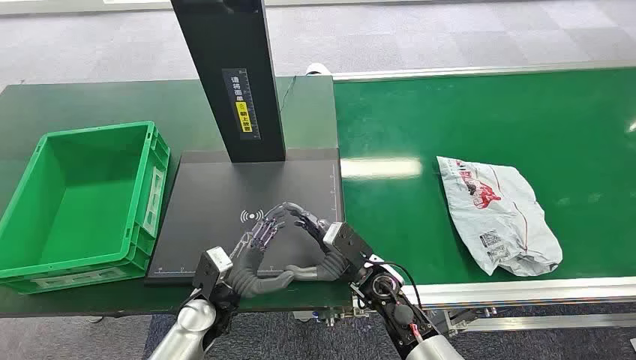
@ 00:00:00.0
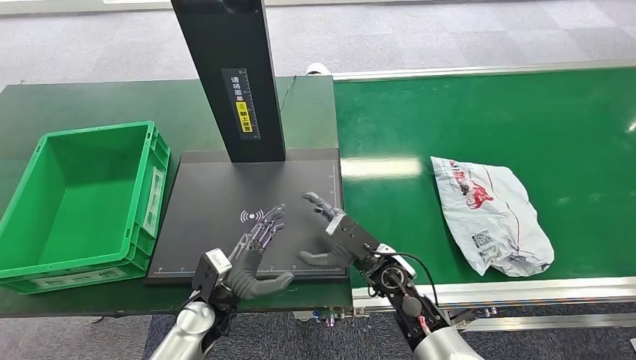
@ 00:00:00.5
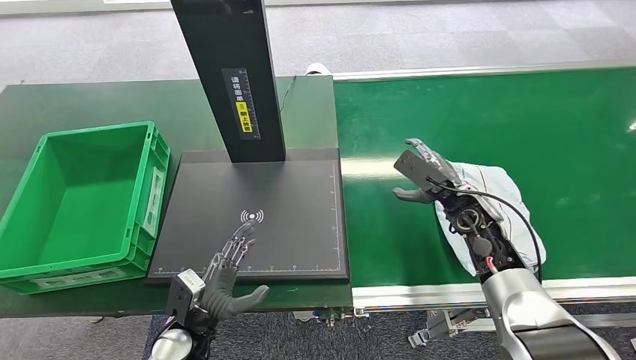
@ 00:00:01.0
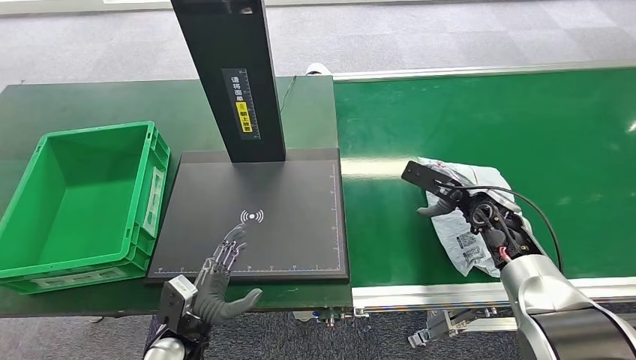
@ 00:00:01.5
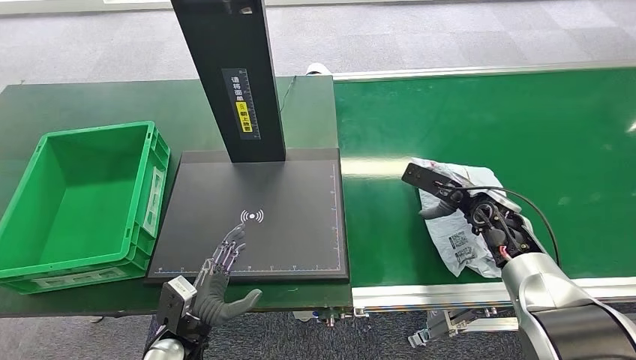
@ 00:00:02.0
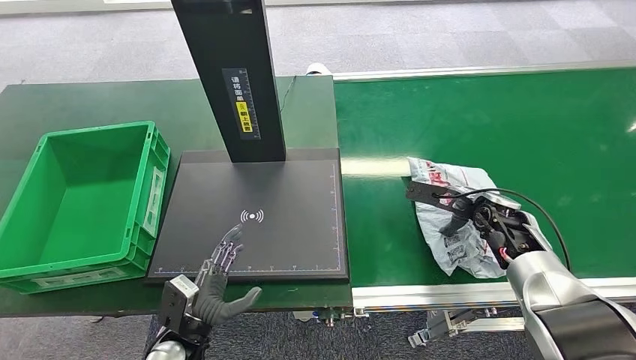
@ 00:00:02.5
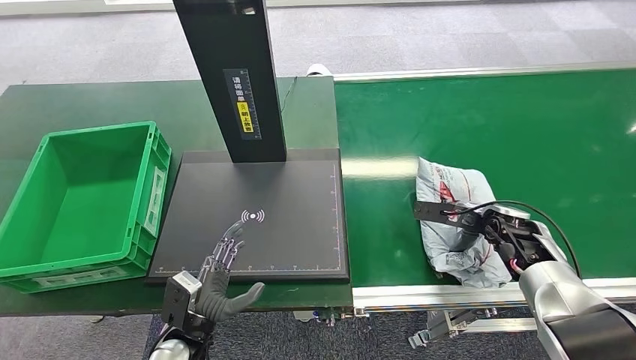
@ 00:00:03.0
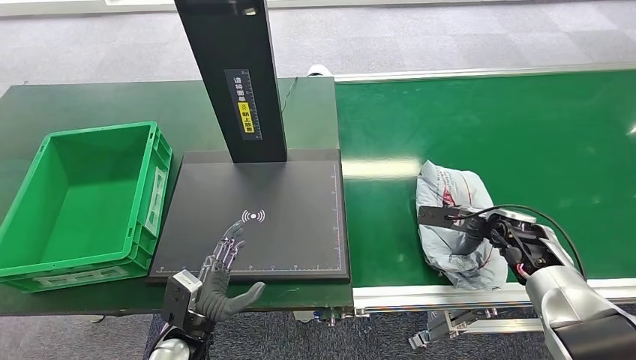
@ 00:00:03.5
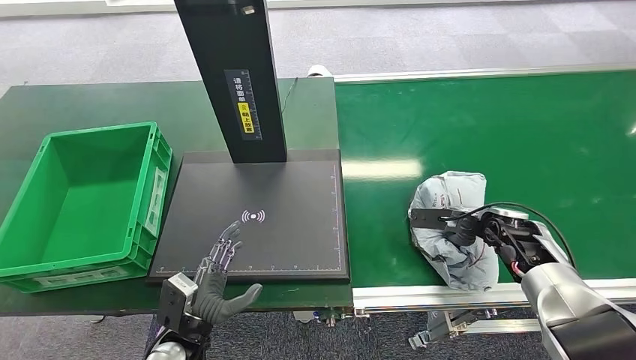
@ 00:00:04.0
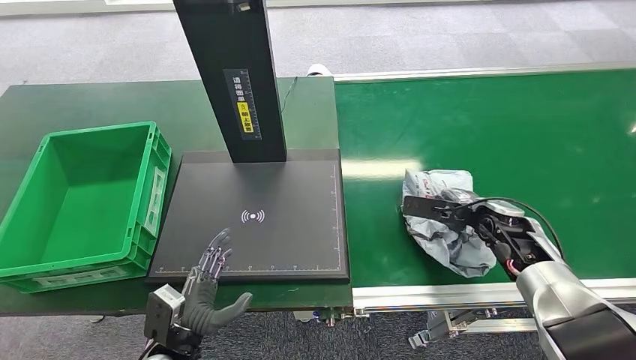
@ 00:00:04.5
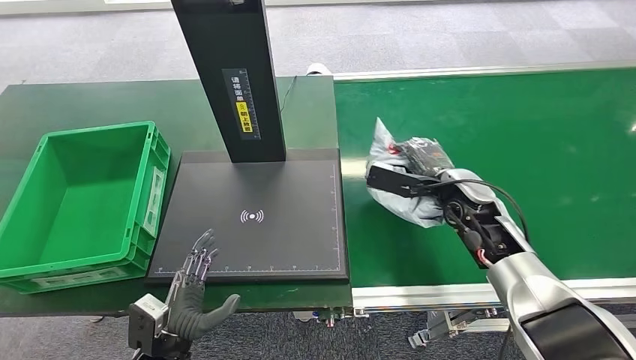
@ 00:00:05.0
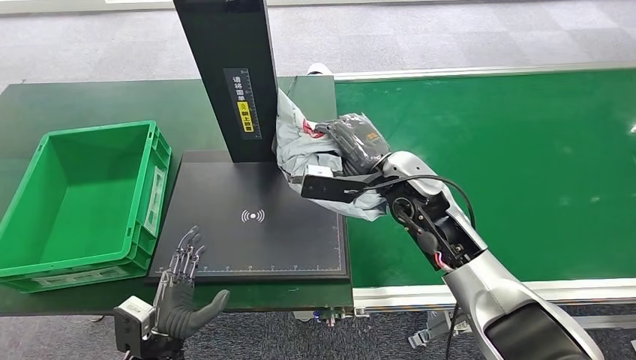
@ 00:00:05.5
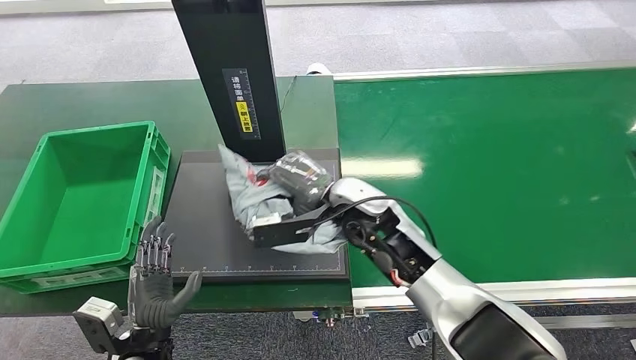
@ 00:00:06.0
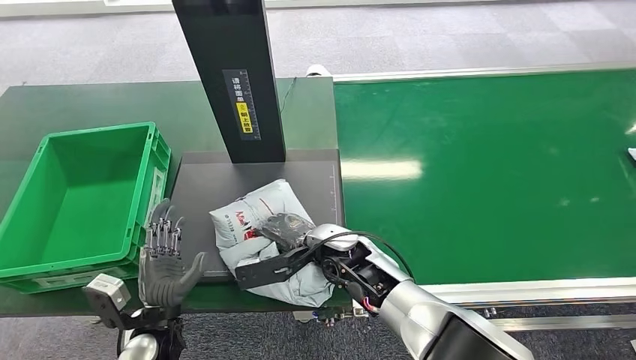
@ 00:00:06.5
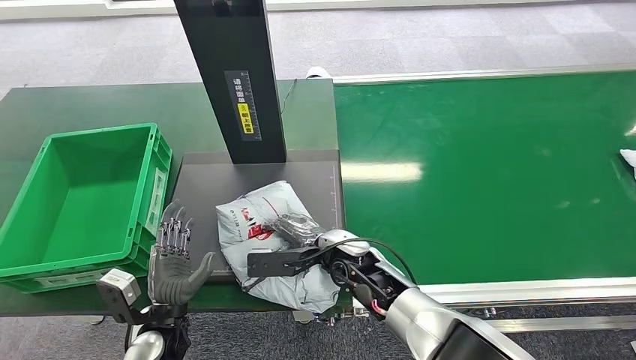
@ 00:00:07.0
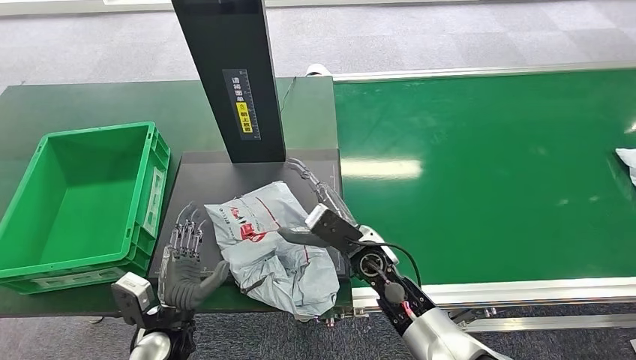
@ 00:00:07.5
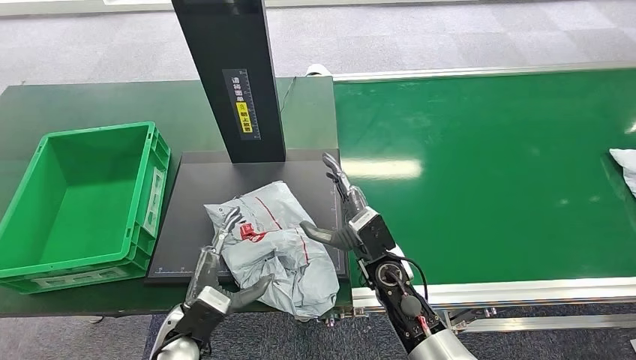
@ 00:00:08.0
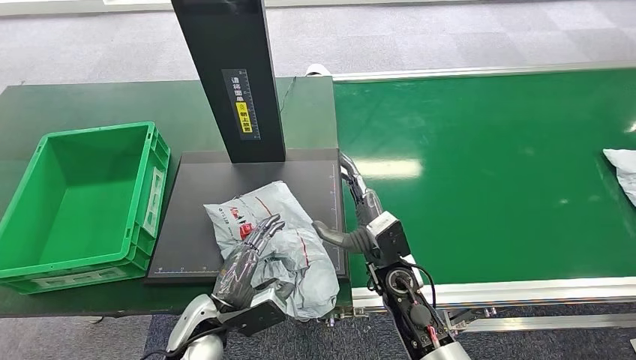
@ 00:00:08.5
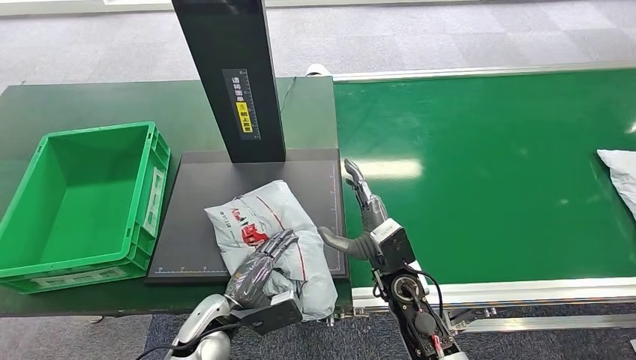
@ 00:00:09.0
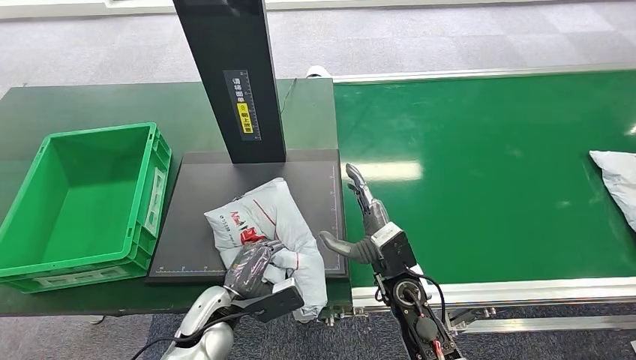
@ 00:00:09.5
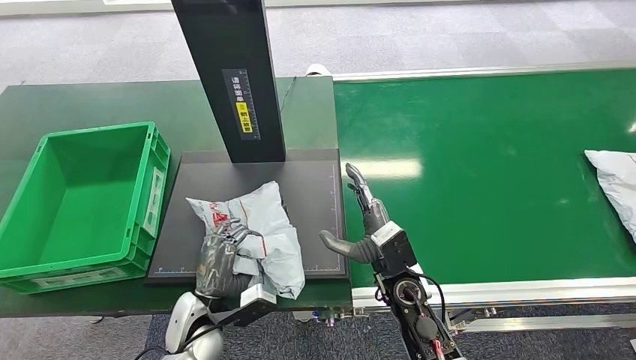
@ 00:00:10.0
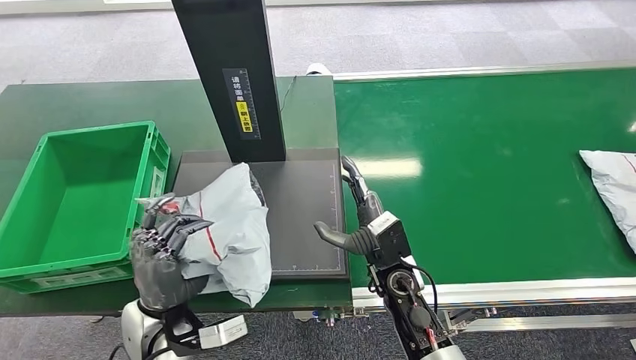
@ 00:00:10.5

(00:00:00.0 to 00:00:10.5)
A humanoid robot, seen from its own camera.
Task of the whole recording: Weigh the package on the weighing device and place it in the left basket.
Step, 00:00:00.0 - 00:00:05.0: Pick up the package from the conveyor belt.
Step, 00:00:06.0 - 00:00:07.5: Place the package onto the inbound machine.
00:00:02.0 - 00:00:04.0: The right hand ends up approximately 5 cm from where it was.
00:00:06.5 - 00:00:08.5: Both hands move to the right, roughly 5 cm.
00:00:08.5 - 00:00:10.5: The left hand is displaced upward by some 10 cm.

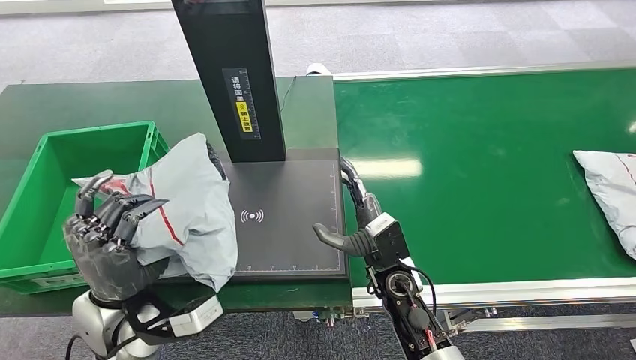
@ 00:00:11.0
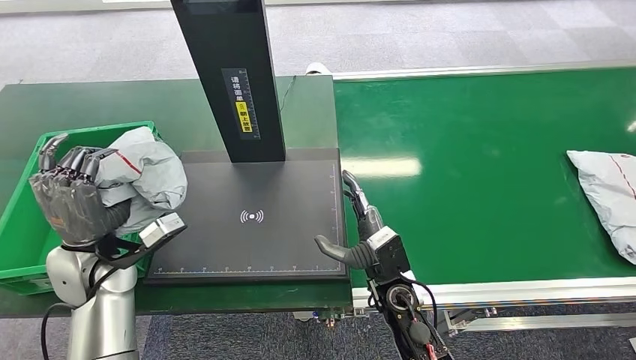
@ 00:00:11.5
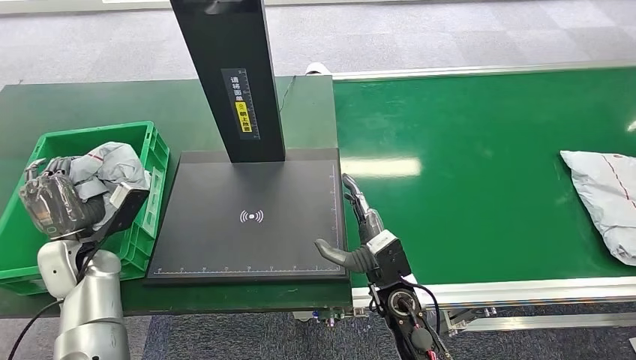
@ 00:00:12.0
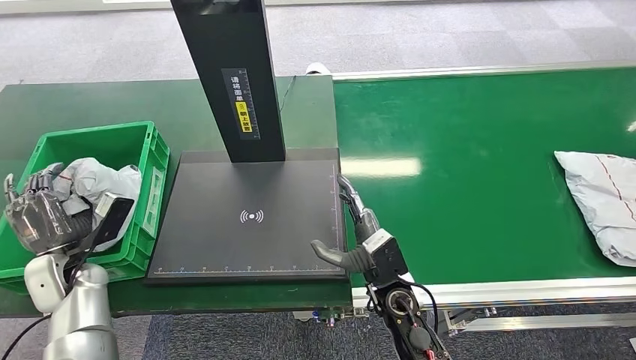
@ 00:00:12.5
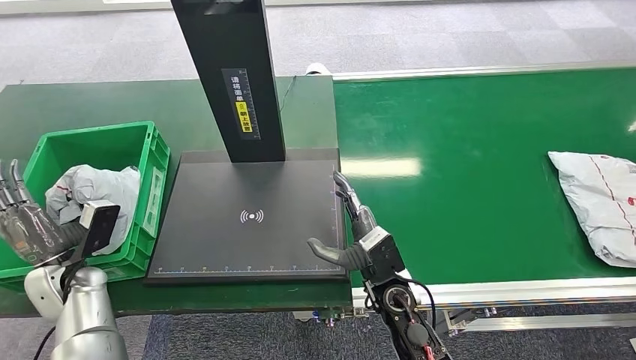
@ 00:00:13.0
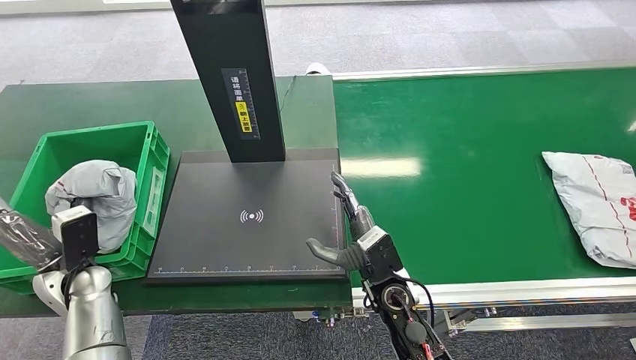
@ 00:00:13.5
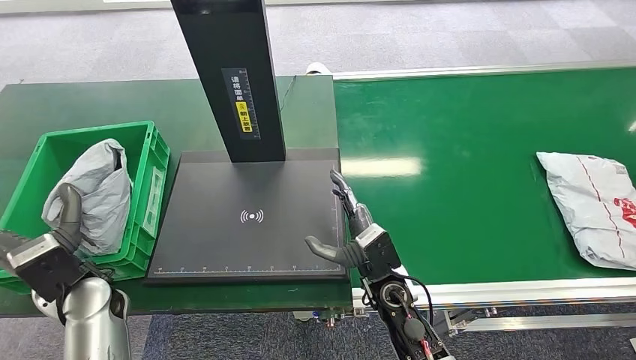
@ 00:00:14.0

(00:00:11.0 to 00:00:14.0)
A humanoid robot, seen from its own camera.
Task of the whole recording: Weigh the package on the weighing device and place it in the left basket.
Step, 00:00:11.5 - 00:00:14.0: Place the package into the parcel locker.
00:00:11.0 - 00:00:12.5: The left hand shifts about 20 cm to the left and forward.
00:00:12.5 - 00:00:14.0: The left hand moves to the right, about 10 cm.
